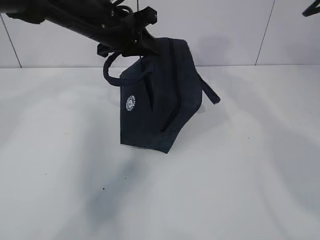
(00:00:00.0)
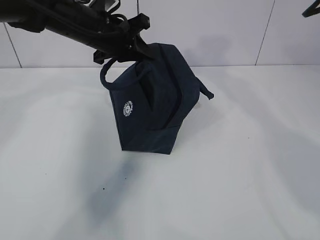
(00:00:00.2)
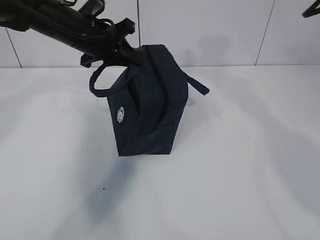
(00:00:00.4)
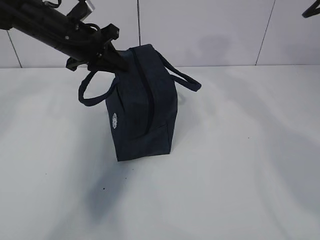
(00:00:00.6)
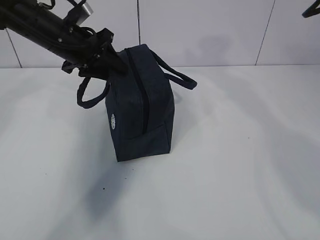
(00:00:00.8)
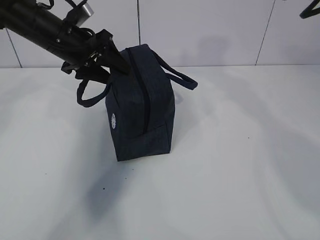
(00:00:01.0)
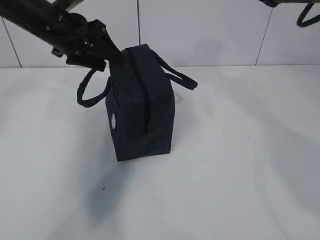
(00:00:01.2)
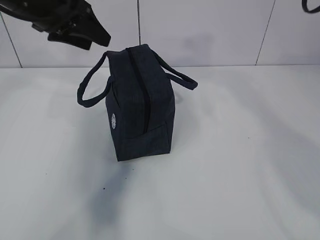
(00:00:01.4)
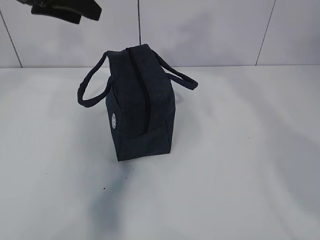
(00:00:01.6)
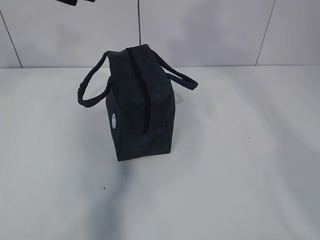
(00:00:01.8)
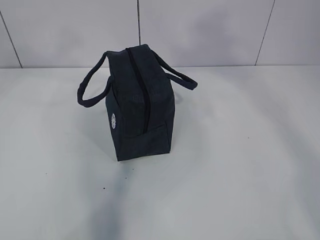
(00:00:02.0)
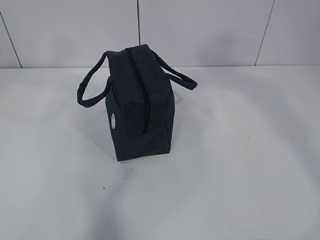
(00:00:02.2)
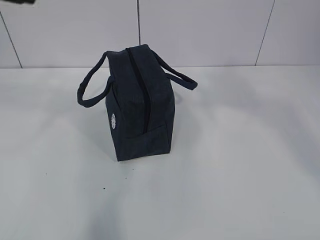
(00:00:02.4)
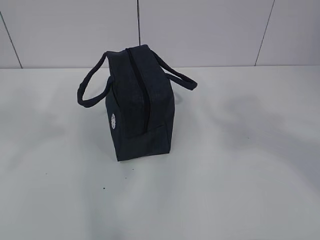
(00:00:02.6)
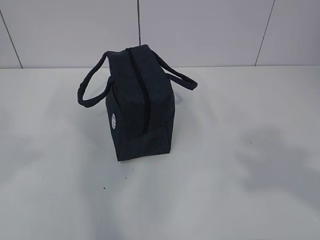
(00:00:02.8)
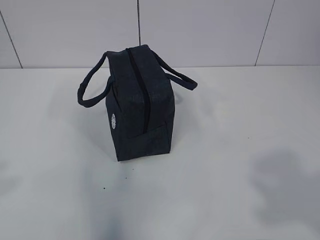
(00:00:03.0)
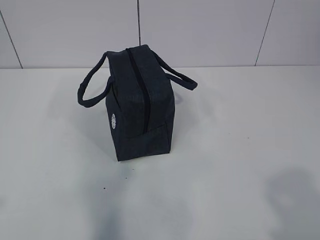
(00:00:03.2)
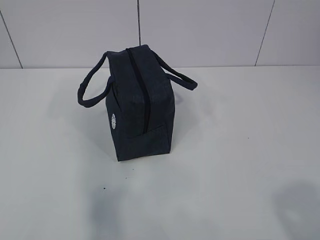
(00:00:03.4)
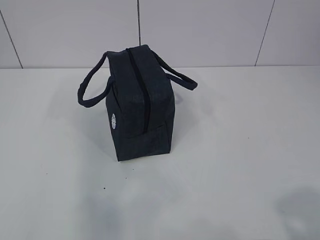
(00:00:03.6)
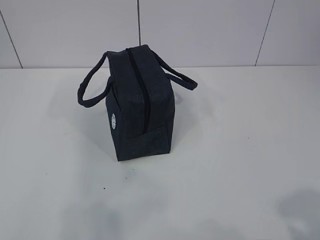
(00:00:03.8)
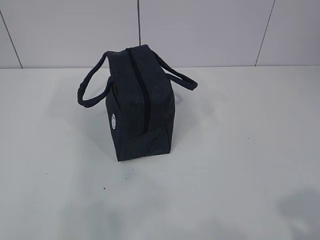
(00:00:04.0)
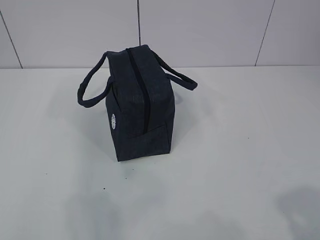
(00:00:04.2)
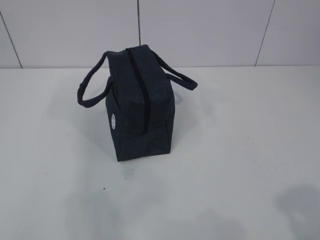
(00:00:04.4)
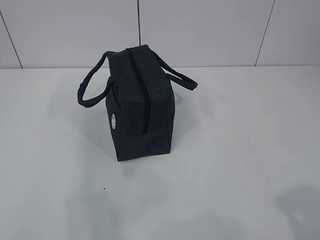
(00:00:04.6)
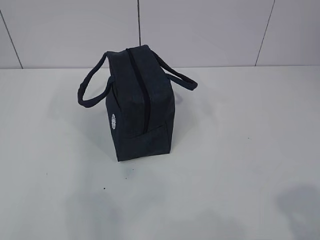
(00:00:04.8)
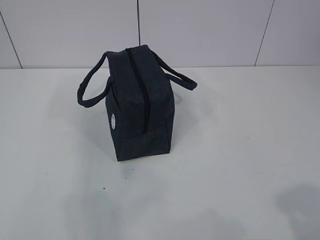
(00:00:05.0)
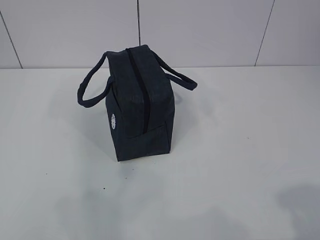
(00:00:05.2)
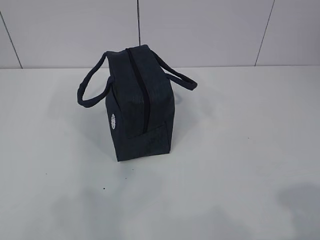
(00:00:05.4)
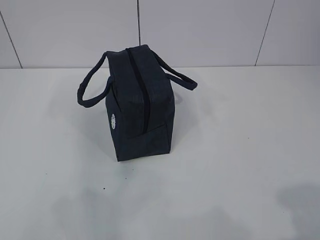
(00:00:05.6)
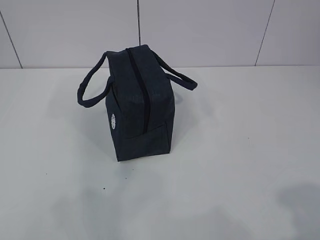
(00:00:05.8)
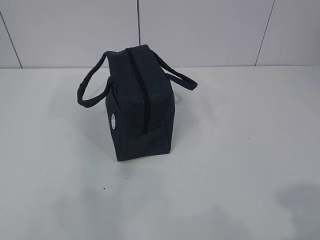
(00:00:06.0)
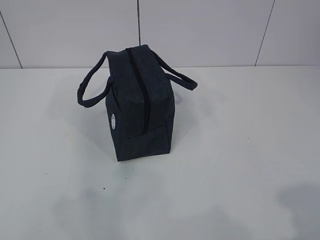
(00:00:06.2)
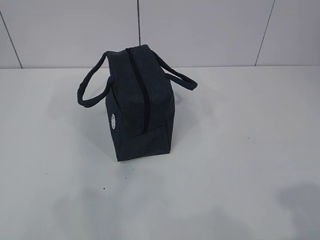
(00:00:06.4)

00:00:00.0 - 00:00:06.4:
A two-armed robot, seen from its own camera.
00:00:00.0 - 00:00:01.6: The right gripper goes roughly 10 cm upward; the left gripper travels to the left and upward by roughly 15 cm, and opens.
00:00:01.6 - 00:00:03.2: The grippers both shift backward by about 35 cm.
